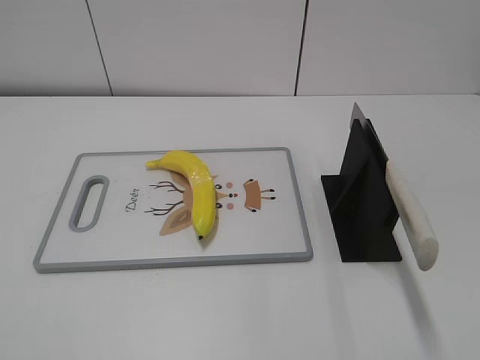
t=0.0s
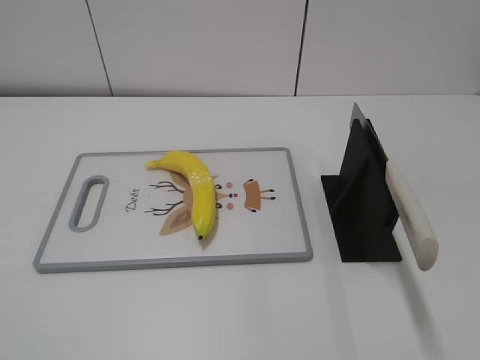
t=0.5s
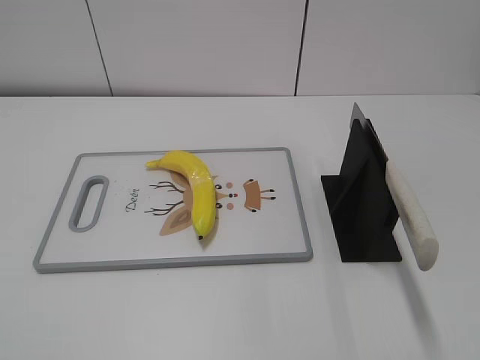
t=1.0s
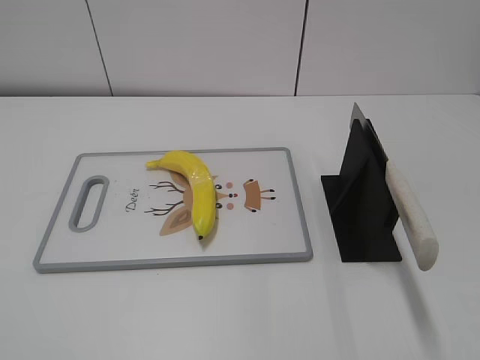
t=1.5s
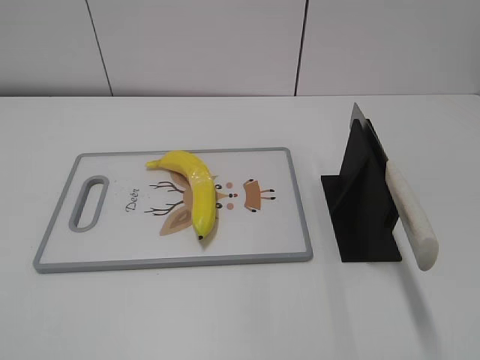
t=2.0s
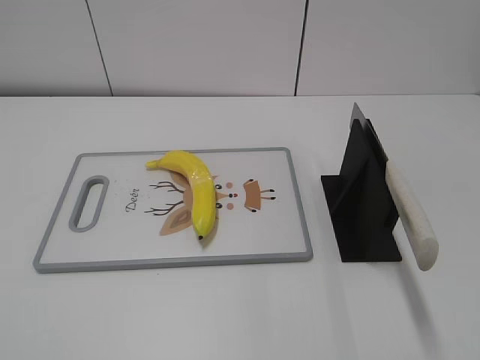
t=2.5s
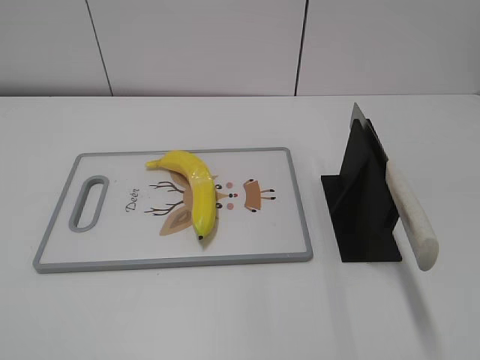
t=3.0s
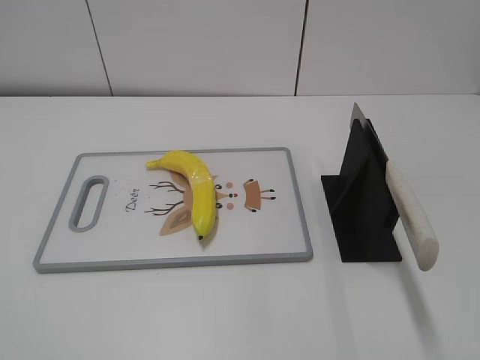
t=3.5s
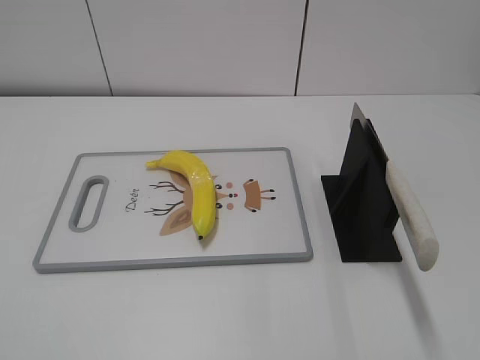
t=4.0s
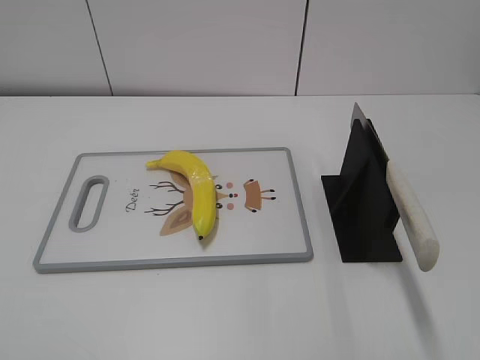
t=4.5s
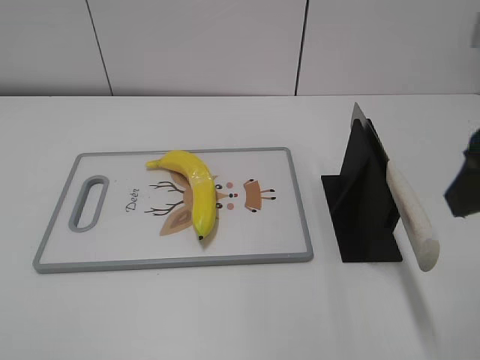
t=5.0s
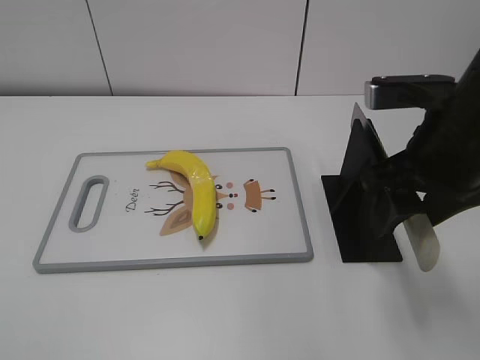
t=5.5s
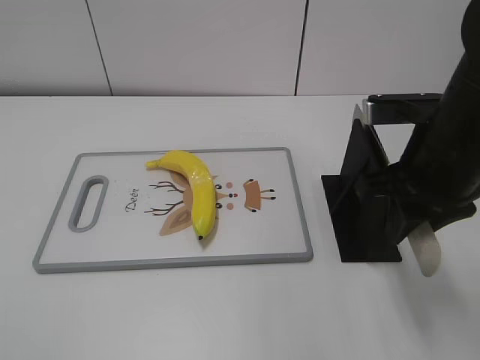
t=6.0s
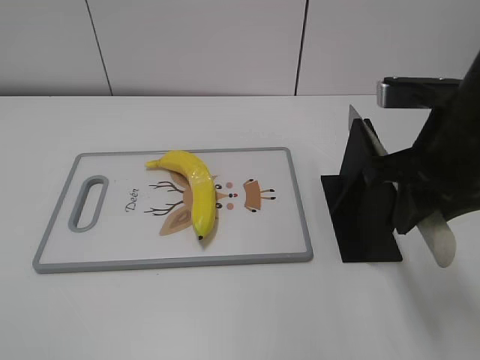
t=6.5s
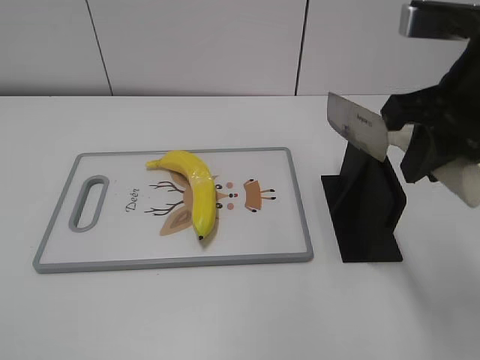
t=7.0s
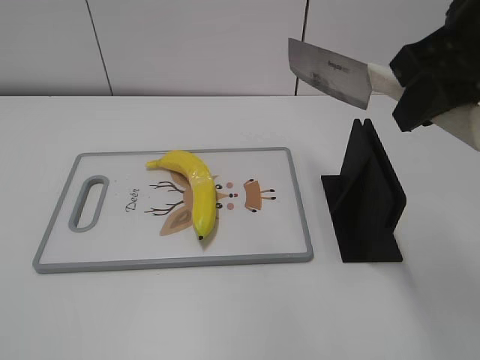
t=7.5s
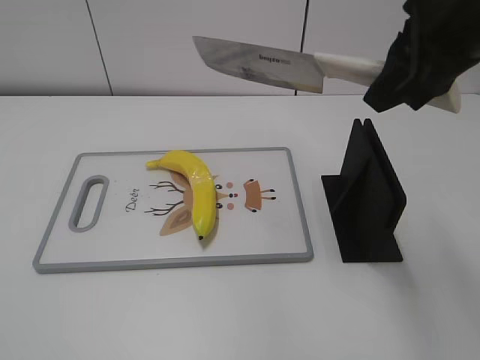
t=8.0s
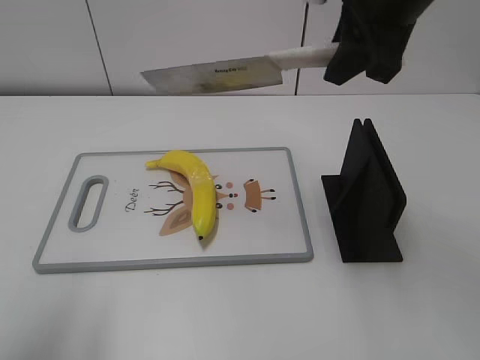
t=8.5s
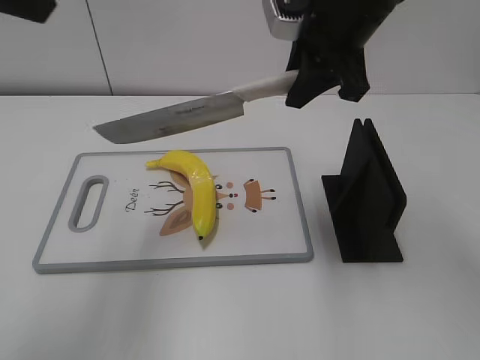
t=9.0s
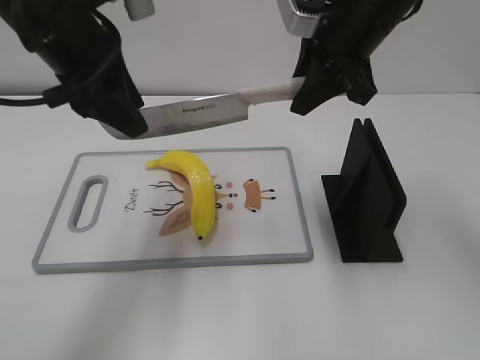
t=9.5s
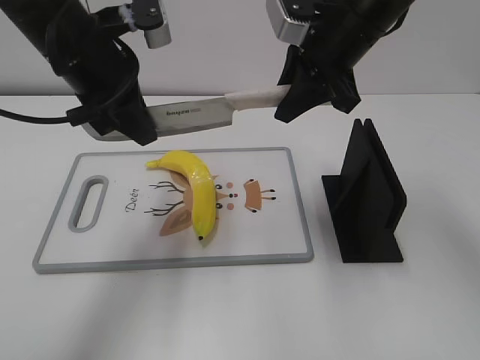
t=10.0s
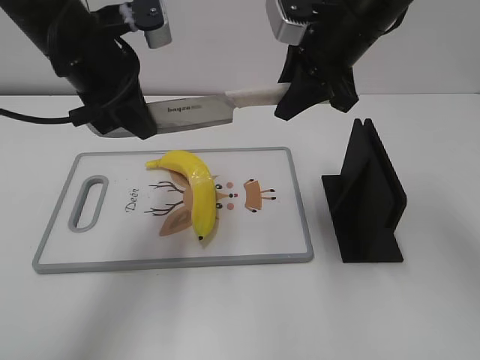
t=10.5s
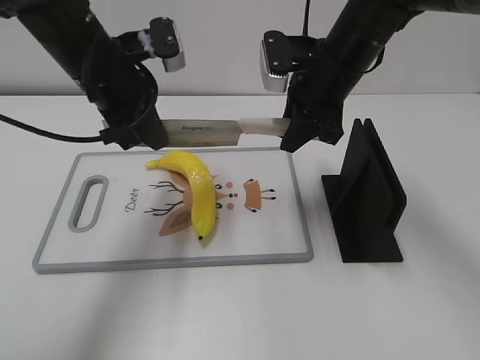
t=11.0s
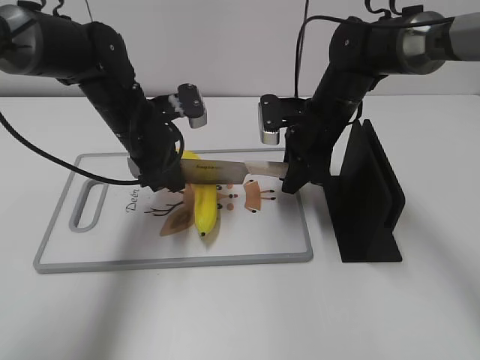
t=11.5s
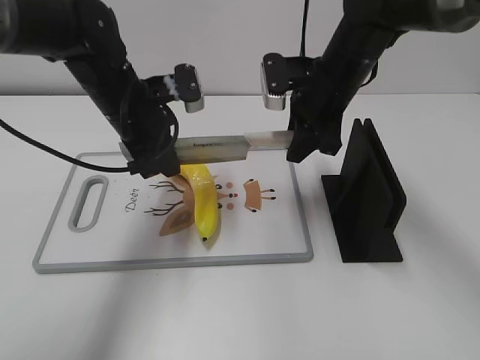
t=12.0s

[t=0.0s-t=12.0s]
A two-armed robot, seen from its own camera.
Task of the whole recording: cut plastic banana.
Step, t=0.0s to t=7.0s: Grab the knife handle with your right hand.
t=4.0s to t=6.0s: The right gripper shifts some 30 cm forward, to the left and downward, and closes its fingers.
t=6.0s to t=8.0s: The right gripper travels upward by some 10 cm.
t=8.0s to t=10.0s: The right gripper moves forward, downward and to the left, about 15 cm. The left gripper shifts roughly 35 cm forward and to the right, and closes up.
t=10.0s to t=12.0s: Both grippers travel together downward, about 10 cm.

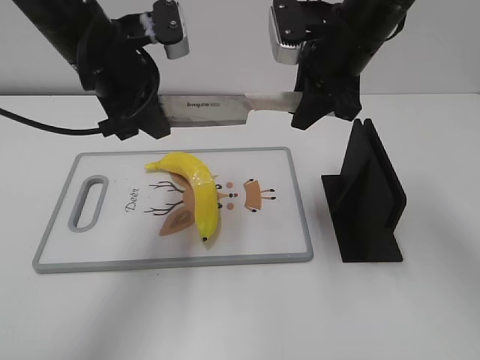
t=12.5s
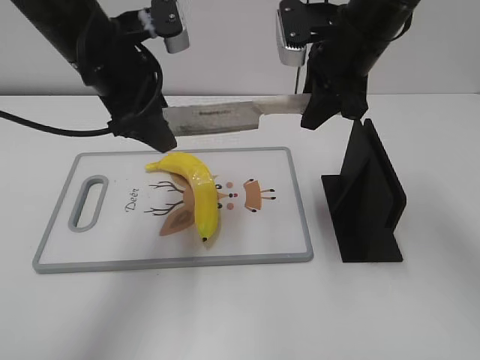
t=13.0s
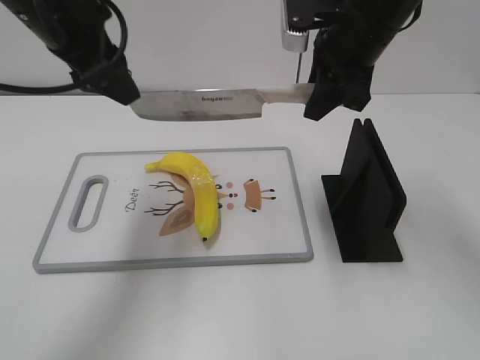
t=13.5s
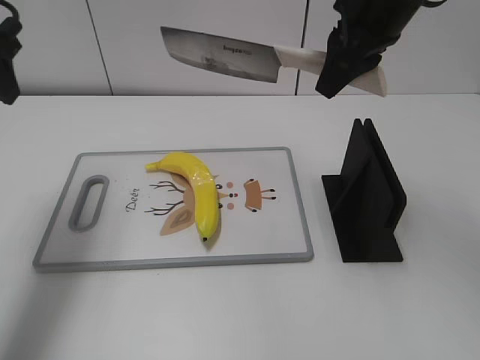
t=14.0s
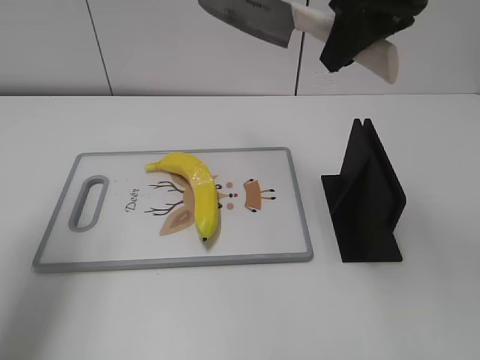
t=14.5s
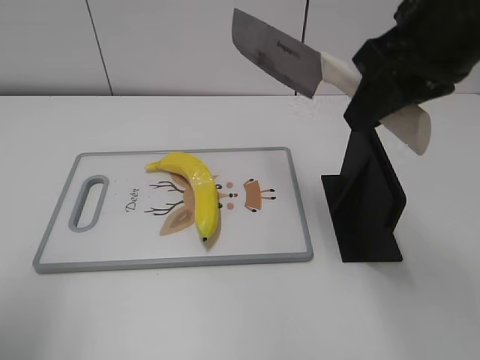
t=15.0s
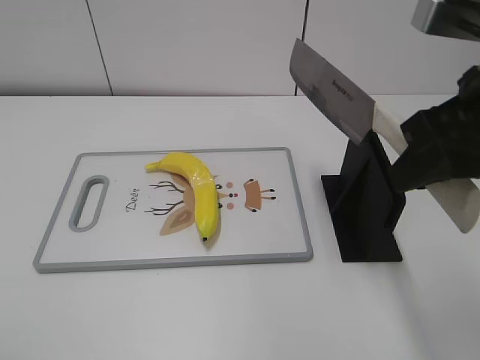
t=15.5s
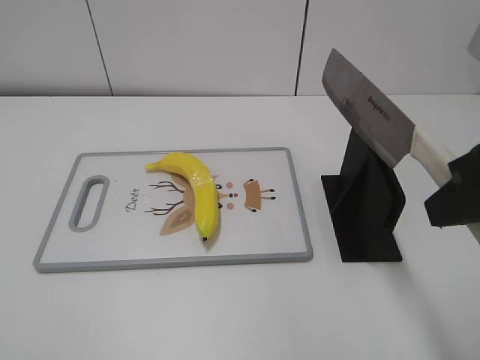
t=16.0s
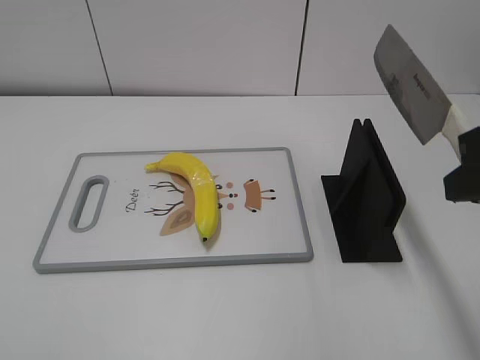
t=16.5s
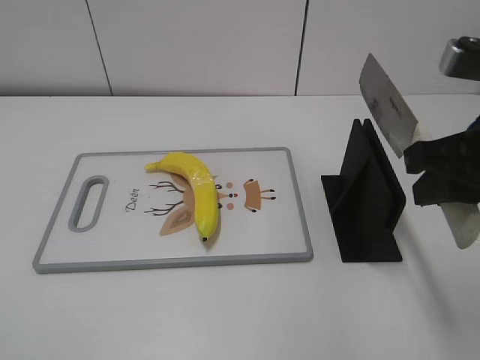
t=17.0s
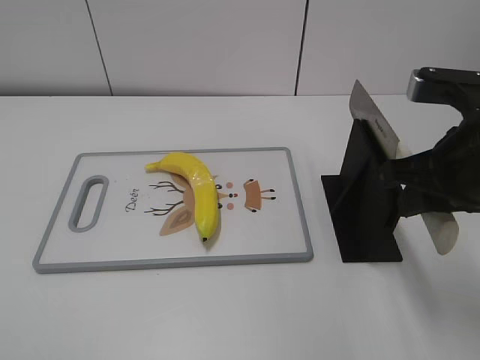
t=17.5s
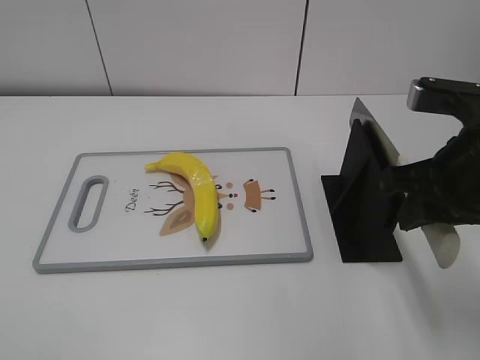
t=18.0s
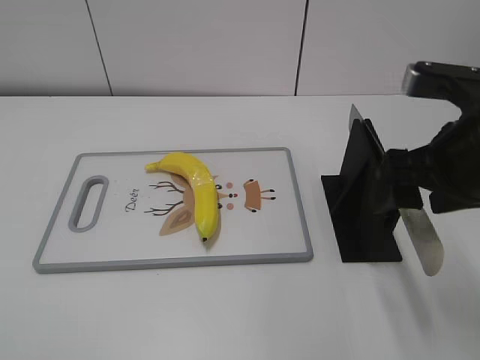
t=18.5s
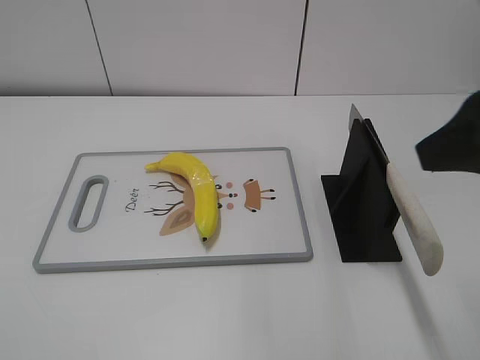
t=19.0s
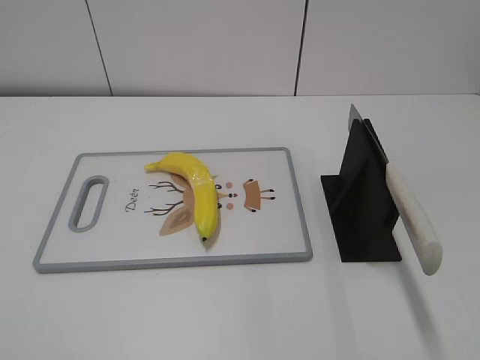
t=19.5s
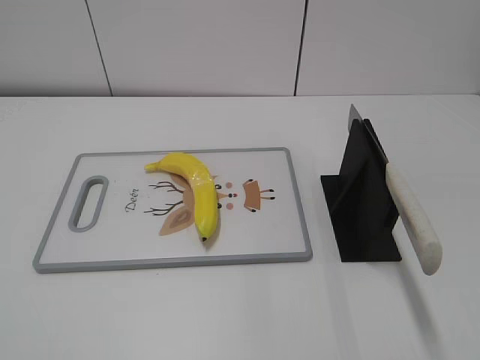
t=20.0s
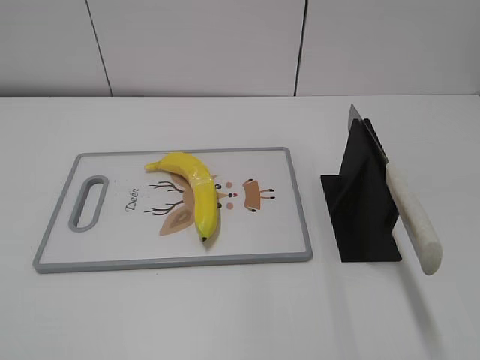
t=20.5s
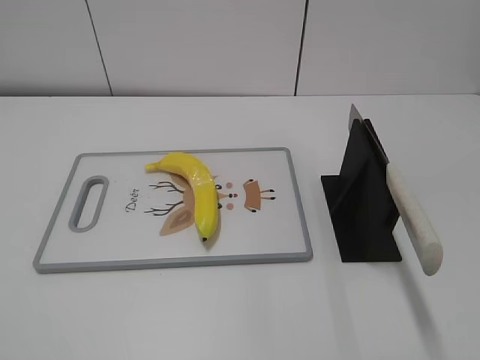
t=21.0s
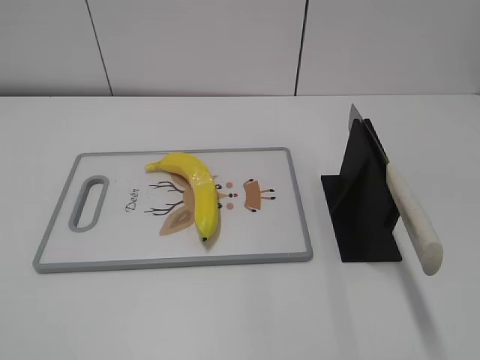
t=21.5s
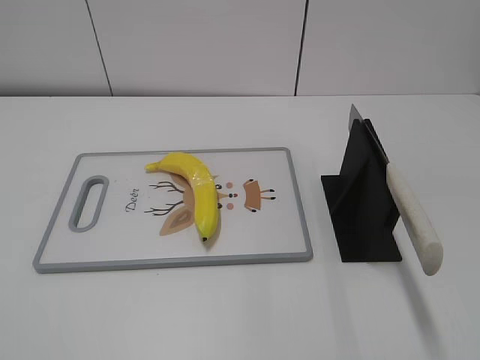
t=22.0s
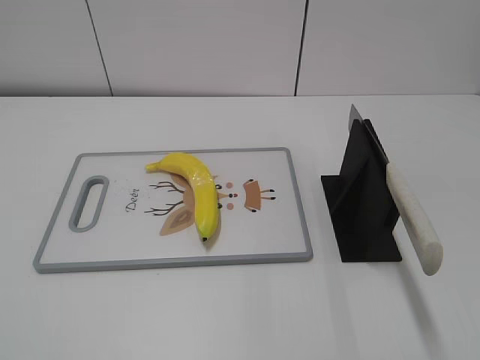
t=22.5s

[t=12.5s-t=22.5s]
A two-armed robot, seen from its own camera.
Task of the whole recording: cut plastic banana.
Step, t=13.0s to t=14.0s: Cut the banana with your right hand.
Step, t=15.0s to t=16.0s: Lift the knife with your right hand.
Step, t=17.0s to t=22.5s: Place the knife on the storage rack with your right hand.
t=12.5s to t=14.5s: The left gripper moves to the left and upward, about 15 cm, and opens up. The right gripper travels upward and backward by roughly 10 cm.
t=14.5s to t=16.5s: The left gripper heads backward, covering approximately 30 cm, while the right gripper heads backward and to the right, covering about 20 cm.
t=16.5s to t=18.5s: The right gripper travels downward and forward by about 10 cm, and opens its fingers.
t=18.5s to t=20.5s: The right gripper is displaced backward and to the right by roughly 25 cm.
